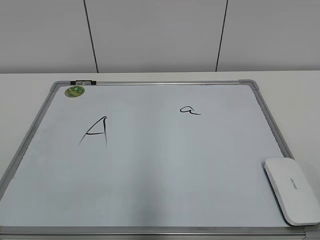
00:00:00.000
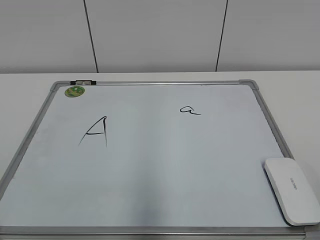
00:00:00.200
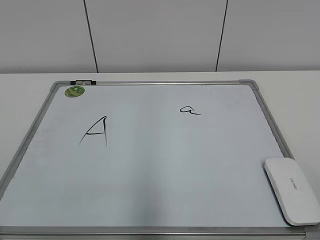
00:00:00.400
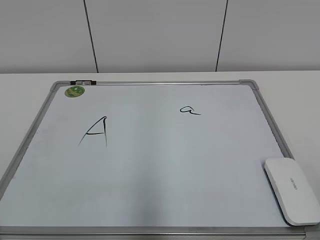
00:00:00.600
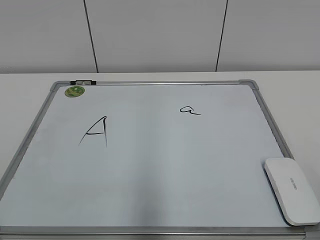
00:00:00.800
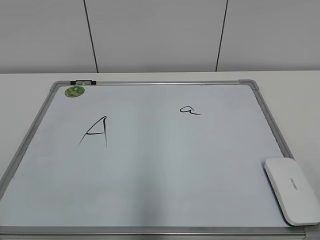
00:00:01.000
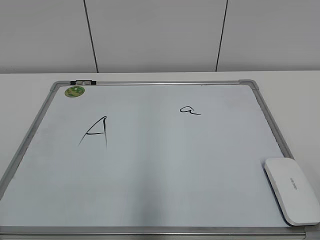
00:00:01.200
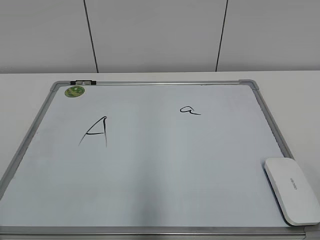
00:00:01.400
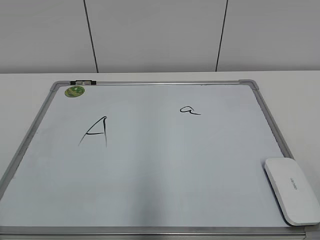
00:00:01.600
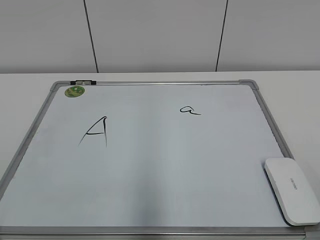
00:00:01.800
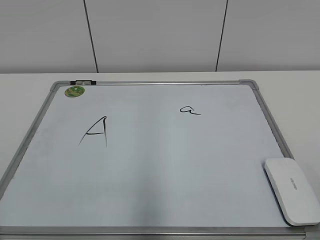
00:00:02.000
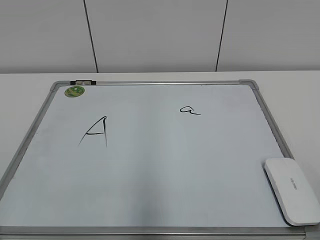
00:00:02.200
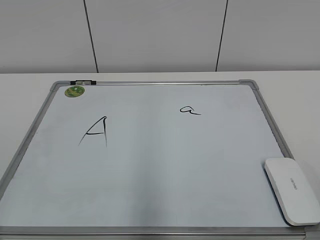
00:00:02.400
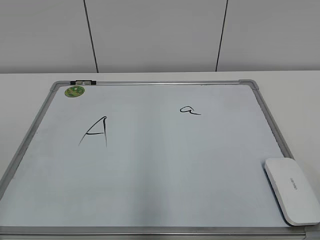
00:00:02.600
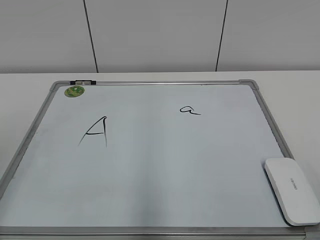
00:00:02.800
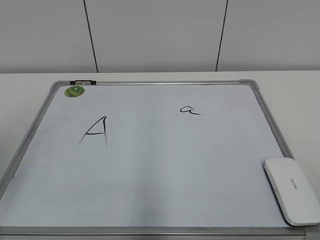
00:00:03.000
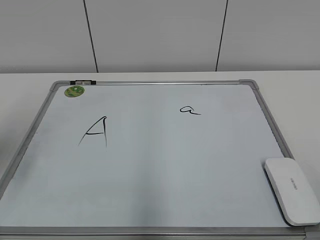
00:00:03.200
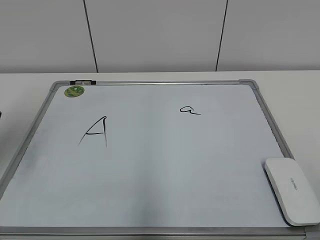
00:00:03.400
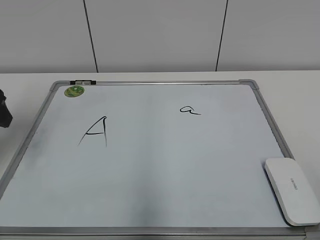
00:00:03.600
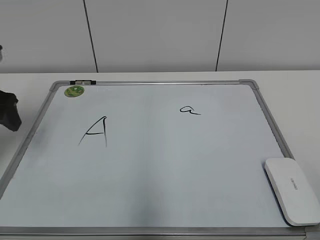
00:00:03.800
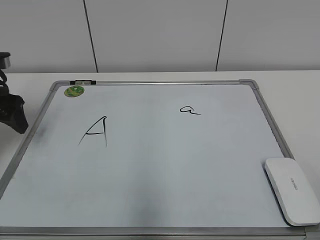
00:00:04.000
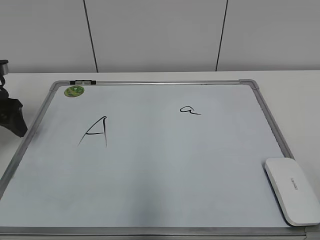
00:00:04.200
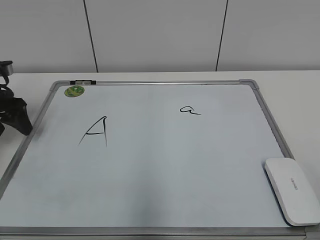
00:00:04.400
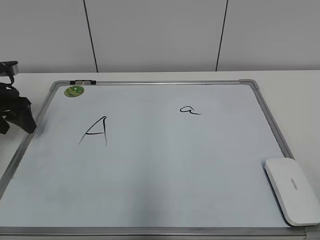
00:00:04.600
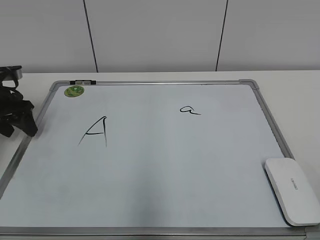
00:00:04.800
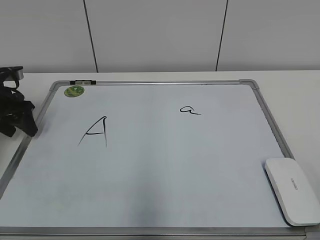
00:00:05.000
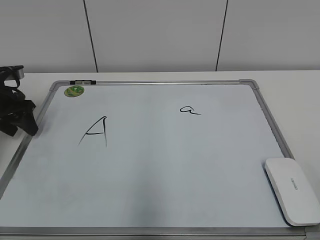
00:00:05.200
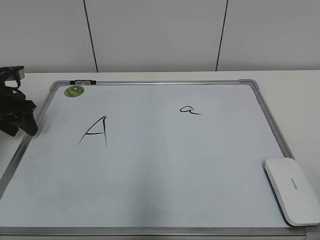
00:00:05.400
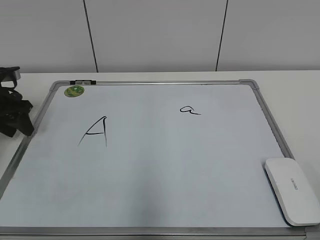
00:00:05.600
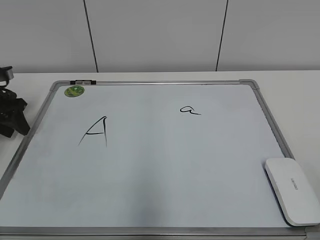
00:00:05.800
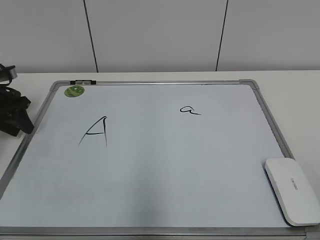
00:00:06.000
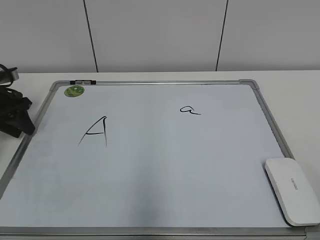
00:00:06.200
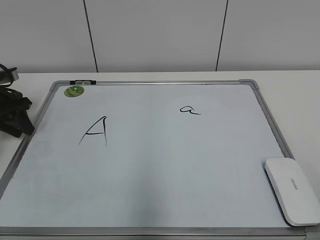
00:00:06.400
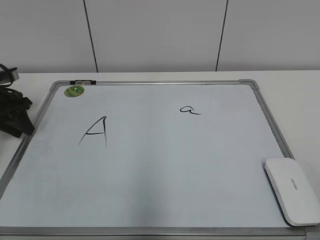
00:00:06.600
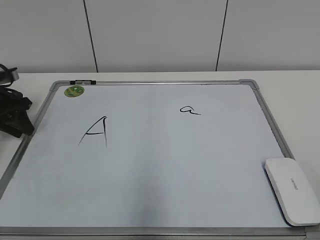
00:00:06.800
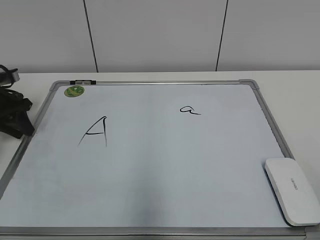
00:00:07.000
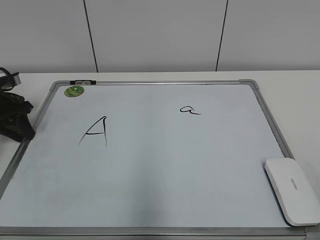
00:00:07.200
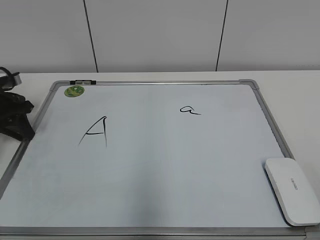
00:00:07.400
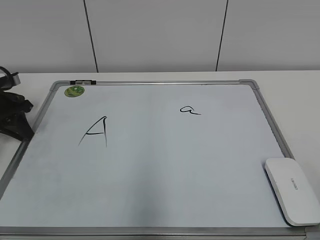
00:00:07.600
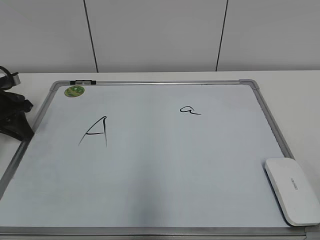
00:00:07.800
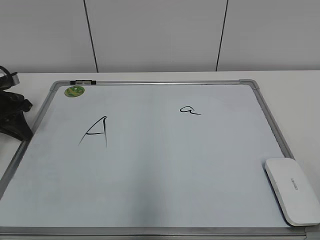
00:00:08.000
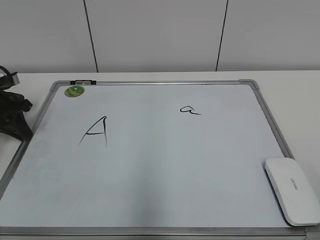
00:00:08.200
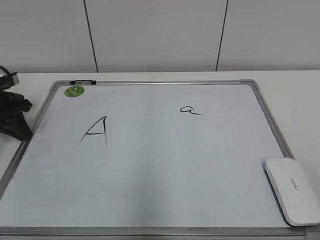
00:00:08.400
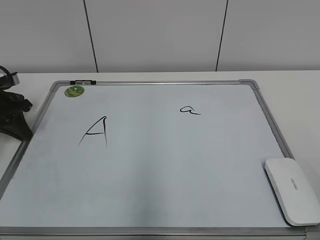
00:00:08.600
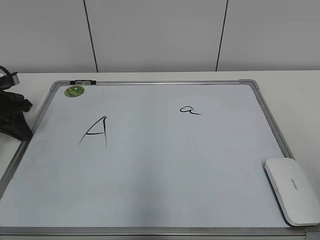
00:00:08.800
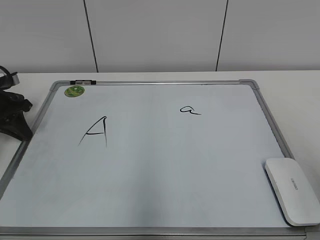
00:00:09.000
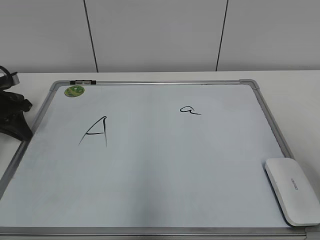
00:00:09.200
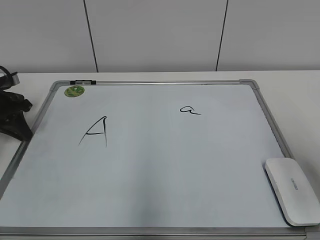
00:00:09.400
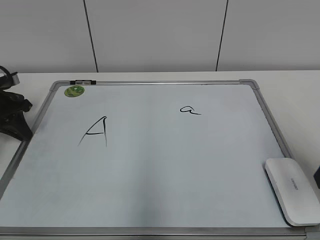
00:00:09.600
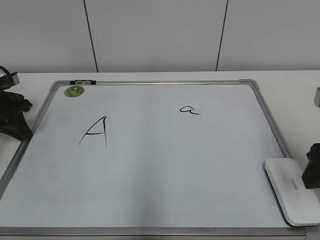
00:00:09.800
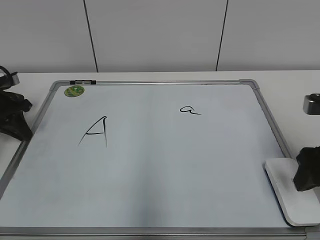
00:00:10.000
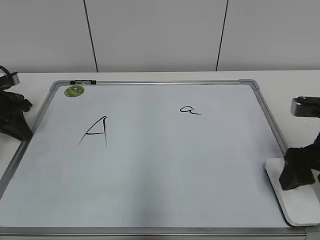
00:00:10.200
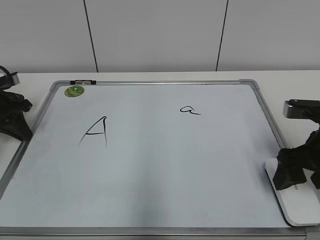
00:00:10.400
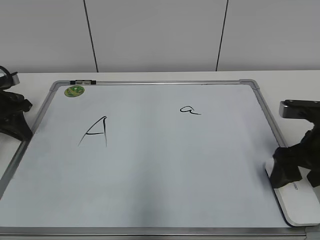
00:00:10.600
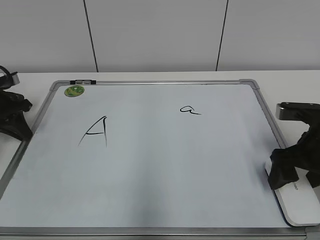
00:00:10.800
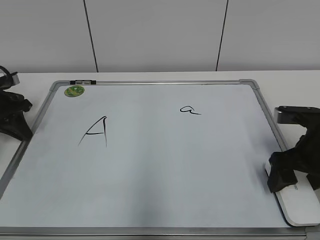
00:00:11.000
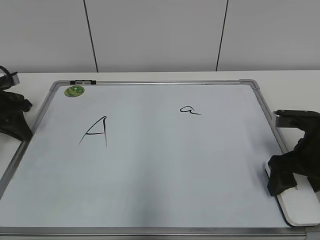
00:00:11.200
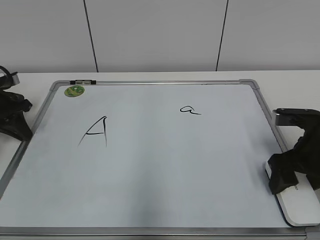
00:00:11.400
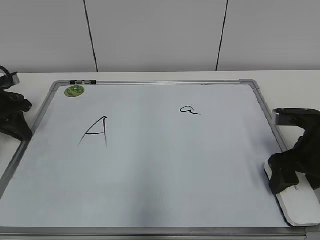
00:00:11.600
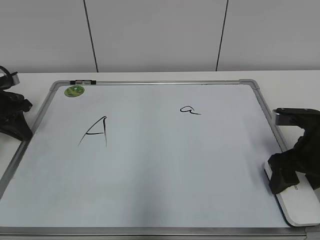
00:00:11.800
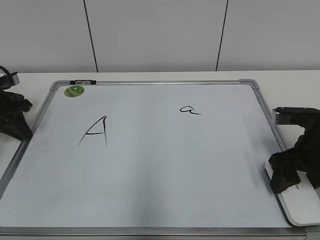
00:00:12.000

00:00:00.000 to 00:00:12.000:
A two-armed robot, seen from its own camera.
Task of the whole recording: pick up the eraser on the blackboard and erase the letter "a".
Step, 00:00:00.000 to 00:00:07.400: Hold the drawing board steady with your left hand.
Step, 00:00:07.600 to 00:00:11.800: Grab the eraser with your right hand.
00:00:03.000 to 00:00:04.400: The left gripper moves forward and downward, about 25 cm.
00:00:04.400 to 00:00:06.000: The left gripper shifts by some 5 cm, and closes up.
00:00:06.000 to 00:00:07.600: The left gripper closes.
00:00:09.000 to 00:00:10.400: The right gripper shifts about 25 cm forward and downward, and opens.
00:00:10.400 to 00:00:12.000: The right gripper closes up.

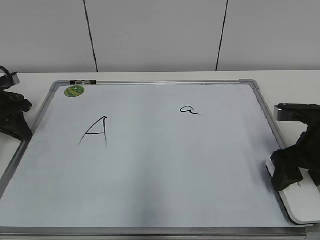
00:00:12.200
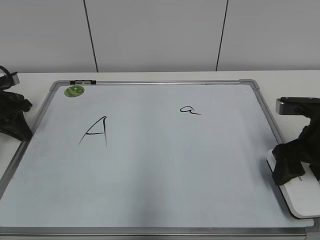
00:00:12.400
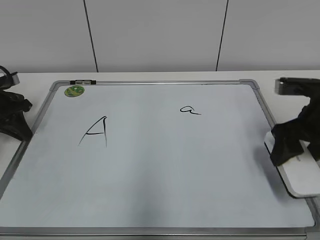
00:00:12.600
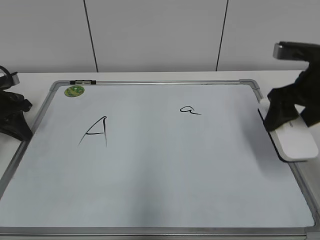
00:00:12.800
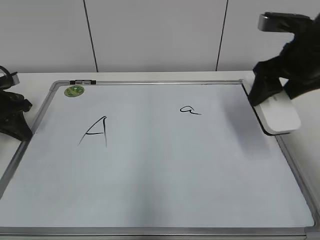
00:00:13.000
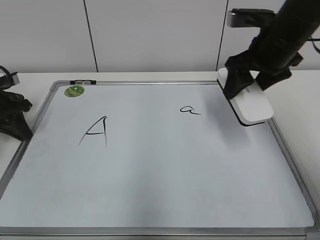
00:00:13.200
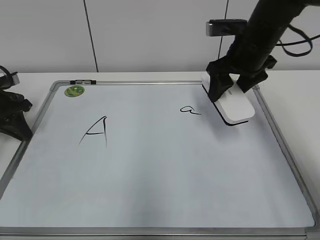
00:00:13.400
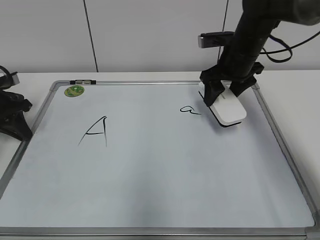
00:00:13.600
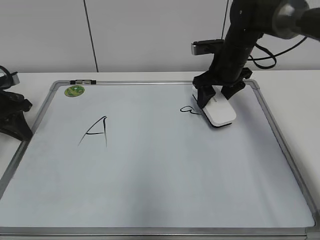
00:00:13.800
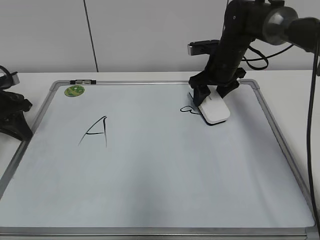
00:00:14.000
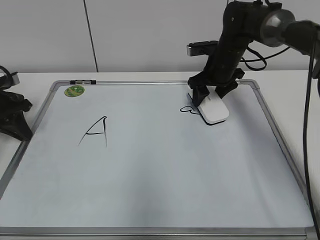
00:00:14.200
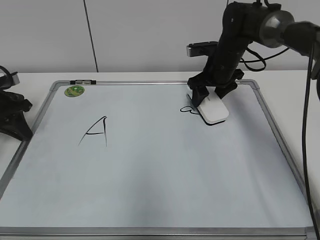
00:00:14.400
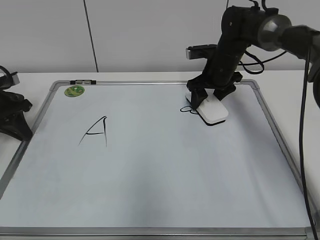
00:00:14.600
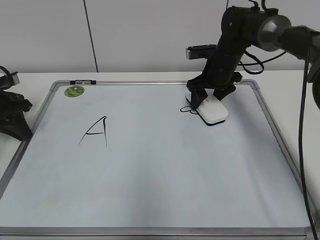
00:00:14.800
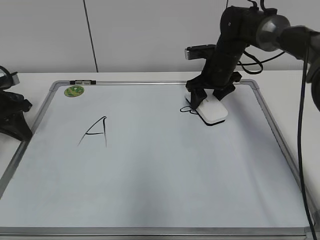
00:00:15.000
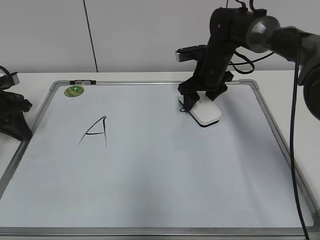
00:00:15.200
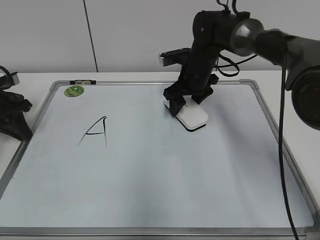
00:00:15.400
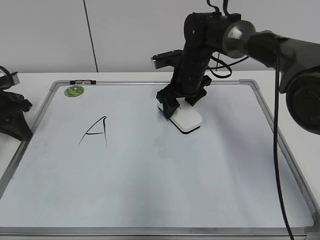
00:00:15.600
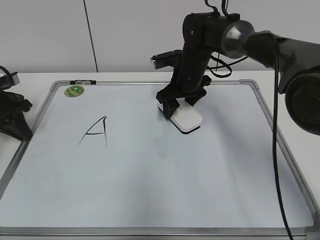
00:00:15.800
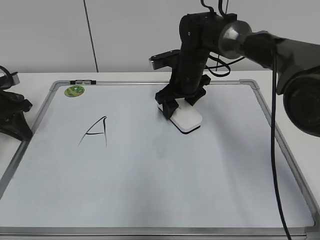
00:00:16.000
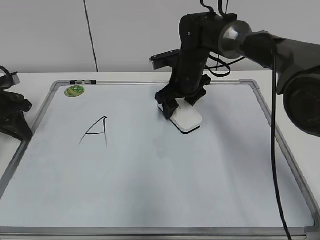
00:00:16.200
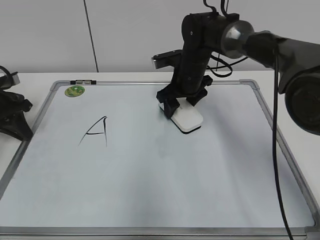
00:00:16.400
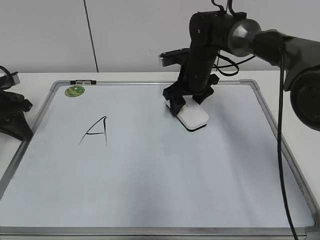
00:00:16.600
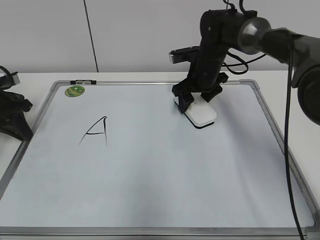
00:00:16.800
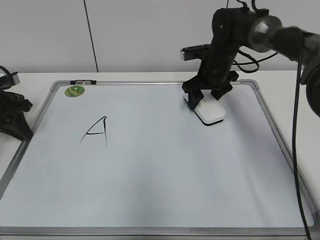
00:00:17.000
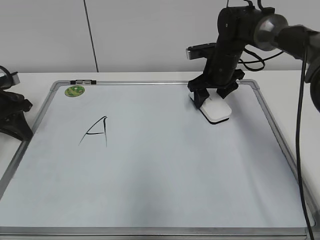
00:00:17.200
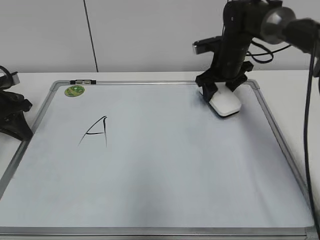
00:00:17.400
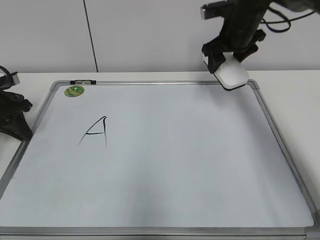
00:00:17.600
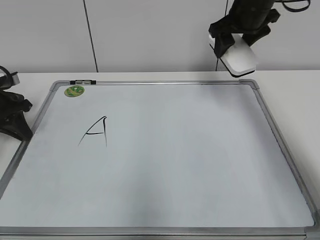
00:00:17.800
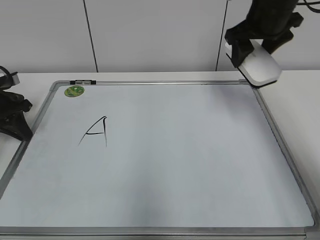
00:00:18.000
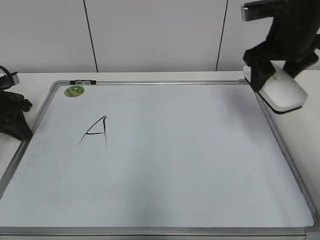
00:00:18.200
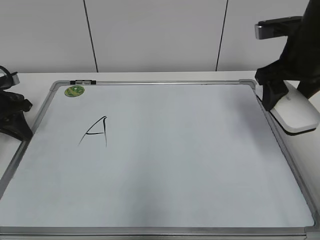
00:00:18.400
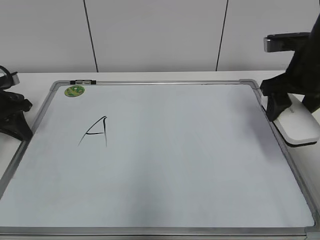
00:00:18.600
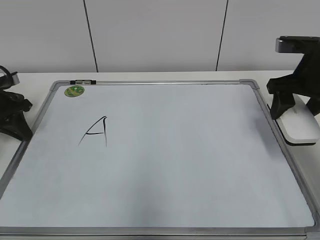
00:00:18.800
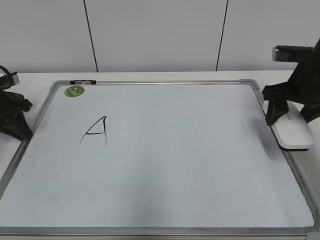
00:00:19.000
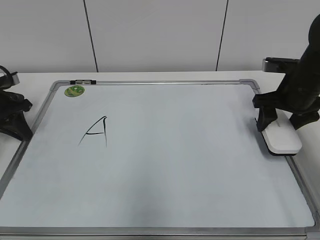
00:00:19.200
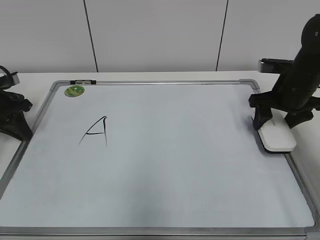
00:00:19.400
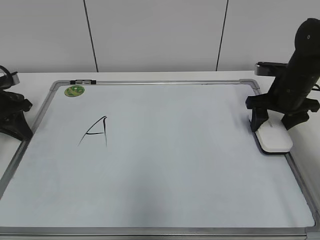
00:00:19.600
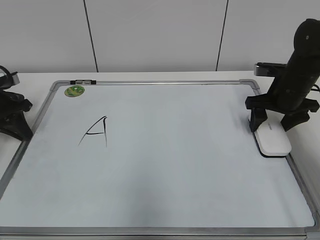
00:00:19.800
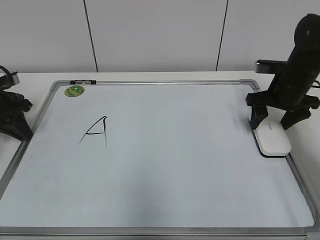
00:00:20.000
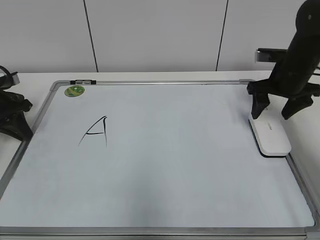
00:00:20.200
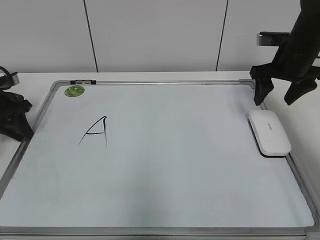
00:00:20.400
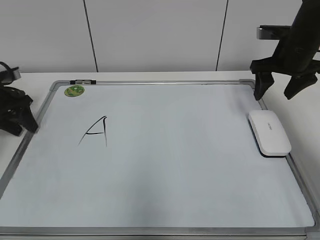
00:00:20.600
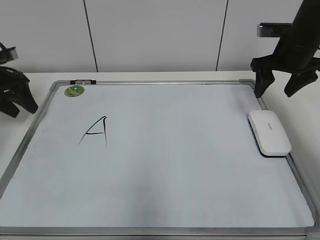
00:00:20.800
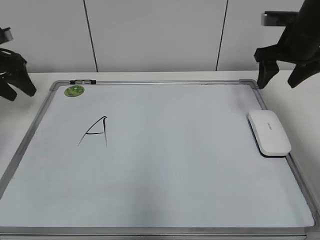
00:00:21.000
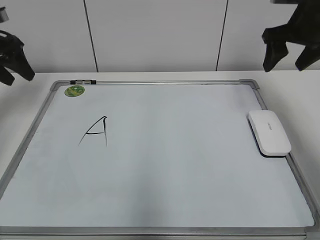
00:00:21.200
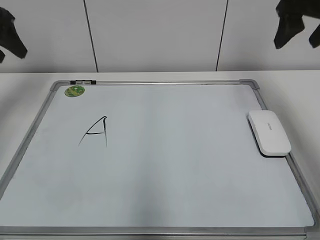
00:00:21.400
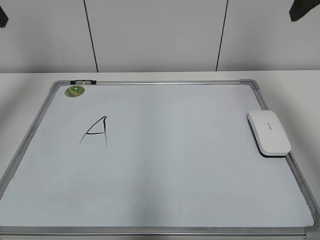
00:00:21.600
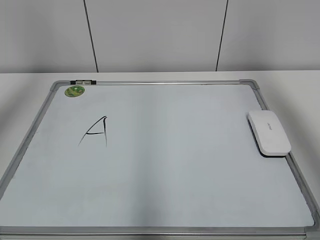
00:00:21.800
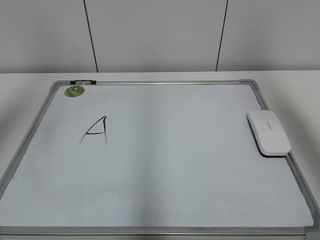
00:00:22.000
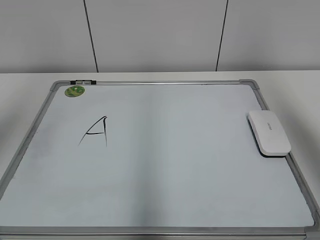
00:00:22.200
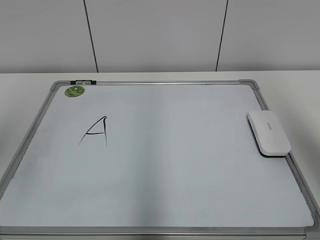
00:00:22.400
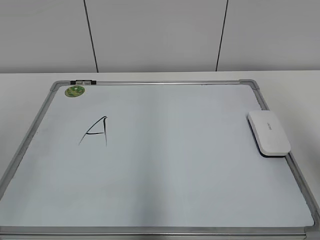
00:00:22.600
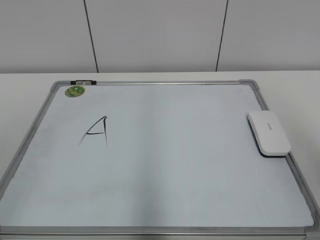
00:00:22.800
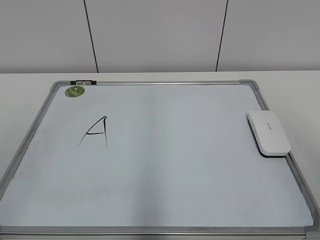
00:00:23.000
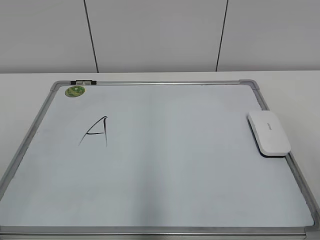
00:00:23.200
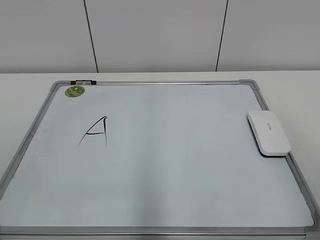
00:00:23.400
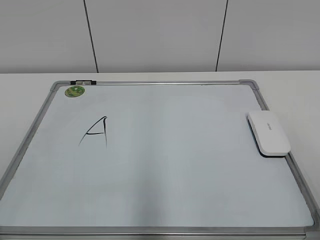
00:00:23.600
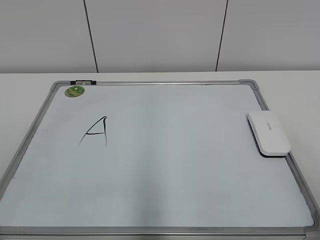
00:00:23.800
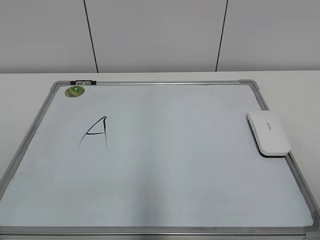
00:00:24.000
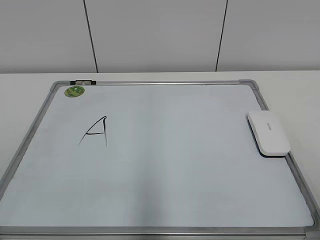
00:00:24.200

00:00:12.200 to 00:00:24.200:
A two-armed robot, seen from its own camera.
Task of the whole recording: pick up the eraser on the blackboard and erase the letter "a".
Step, 00:00:12.200 to 00:00:17.200: Erase the letter a with your right hand.
Step, 00:00:17.400 to 00:00:19.800: Put down the eraser with your right hand.
00:00:12.200 to 00:00:13.800: The right gripper travels forward and to the left by about 20 cm.
00:00:13.800 to 00:00:15.200: The grippers move only a little.
00:00:15.200 to 00:00:16.600: There are only small adjustments of the grippers.
00:00:16.600 to 00:00:18.200: The right gripper is displaced upward, to the right and backward by approximately 20 cm.
00:00:18.200 to 00:00:19.800: The right gripper heads downward, covering roughly 15 cm, and opens up.
00:00:19.800 to 00:00:21.200: The two grippers go about 15 cm upward. The left gripper opens up.
00:00:21.200 to 00:00:22.600: Both grippers move backward and upward, about 30 cm.
00:00:22.600 to 00:00:24.200: The right gripper moves downward and backward, about 20 cm.
